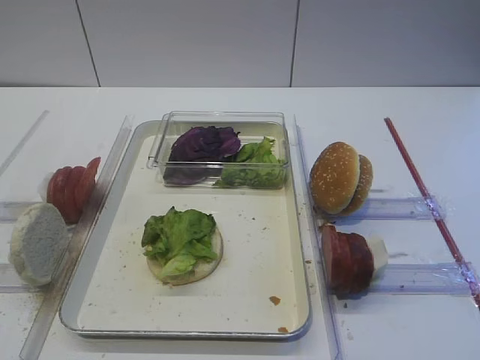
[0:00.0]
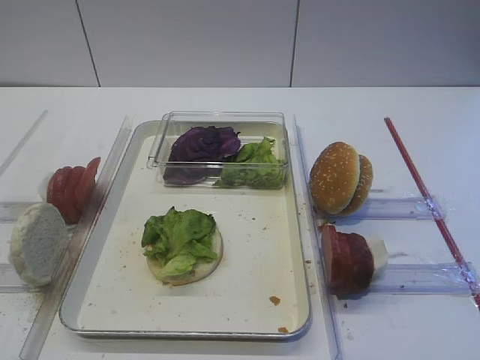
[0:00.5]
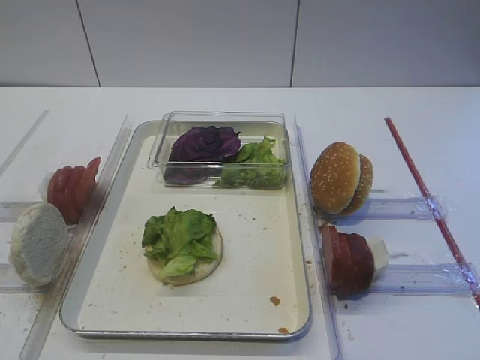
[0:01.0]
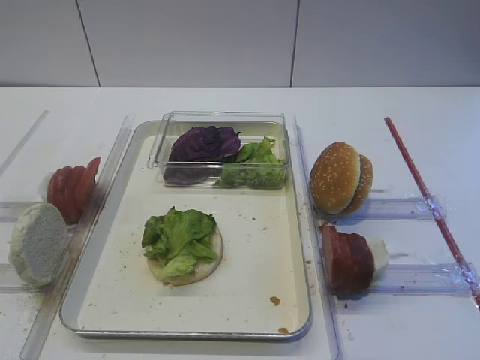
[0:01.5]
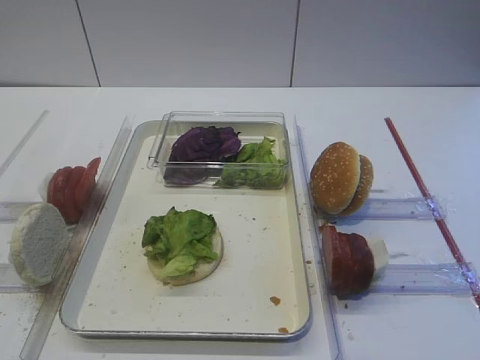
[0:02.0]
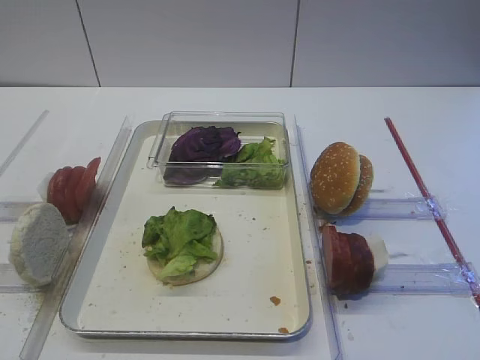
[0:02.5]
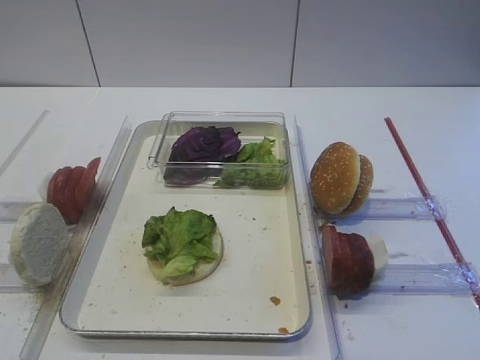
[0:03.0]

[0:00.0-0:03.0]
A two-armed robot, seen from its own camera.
0:00.0 to 0:03.0: Both grippers stay put.

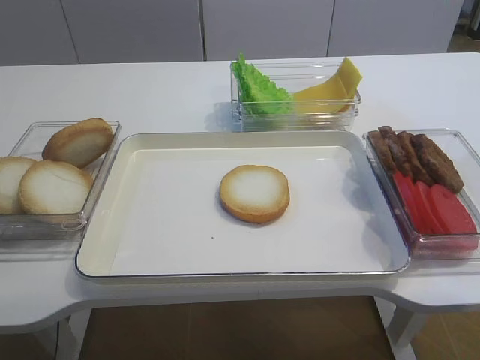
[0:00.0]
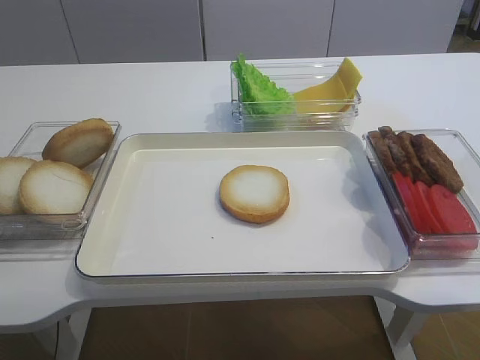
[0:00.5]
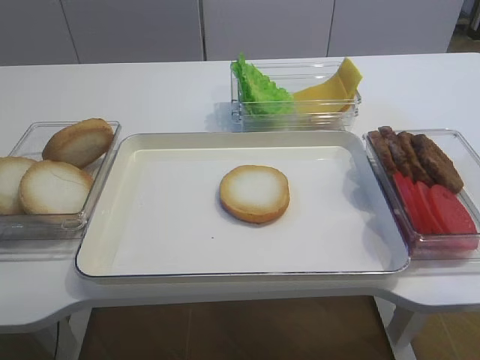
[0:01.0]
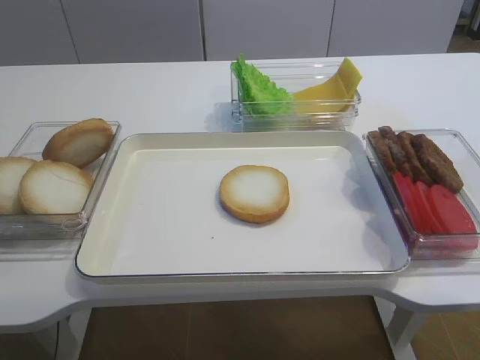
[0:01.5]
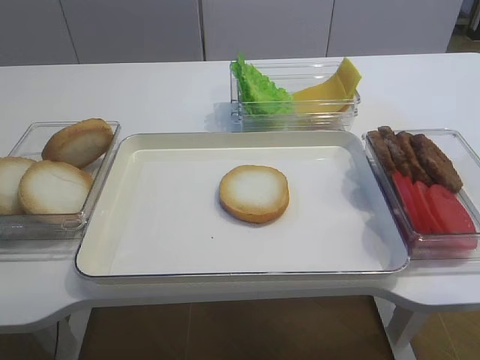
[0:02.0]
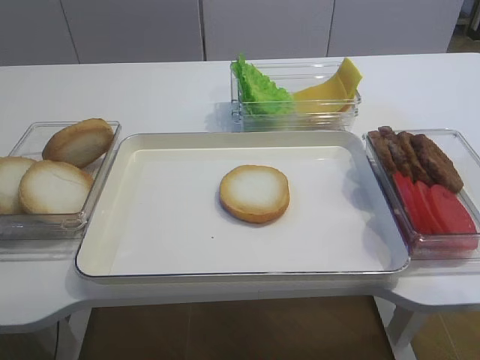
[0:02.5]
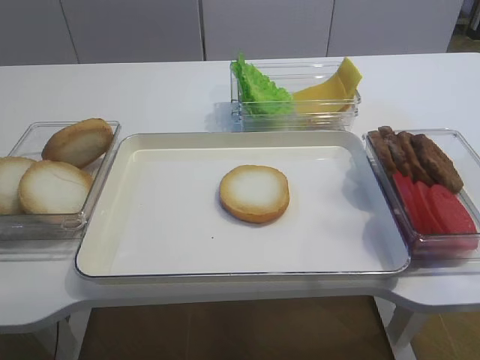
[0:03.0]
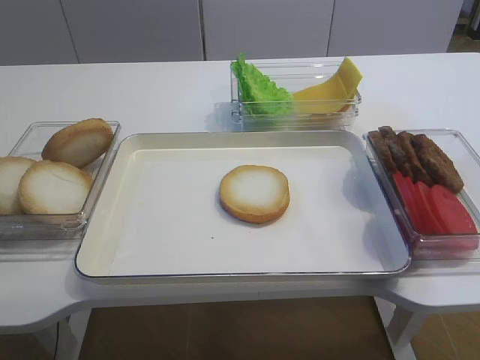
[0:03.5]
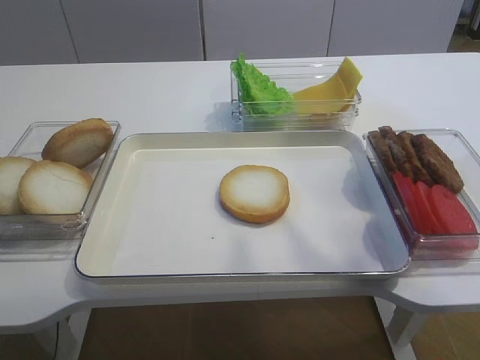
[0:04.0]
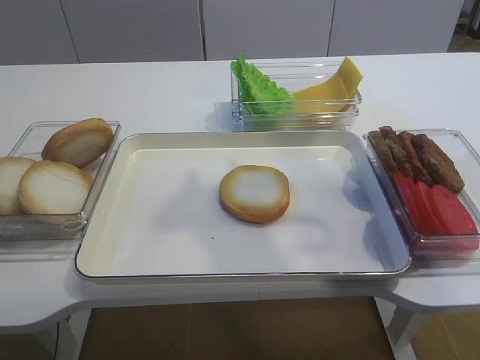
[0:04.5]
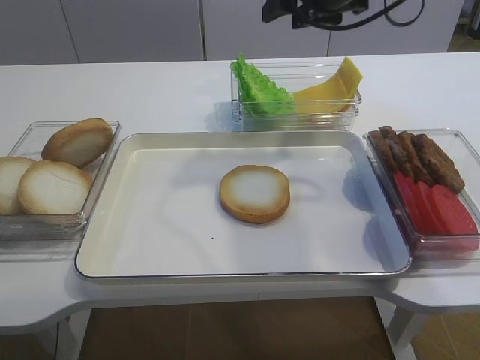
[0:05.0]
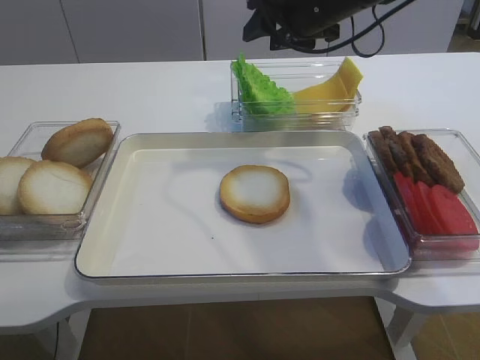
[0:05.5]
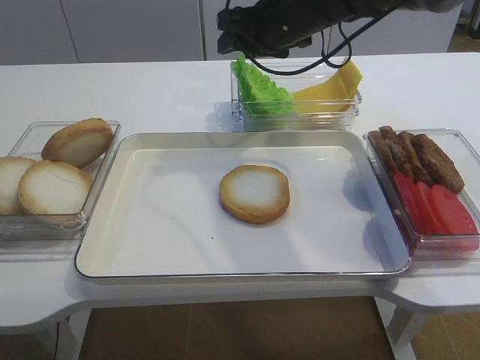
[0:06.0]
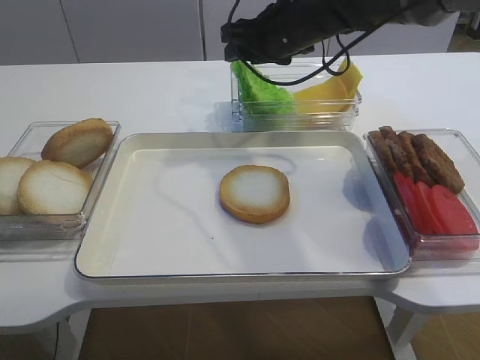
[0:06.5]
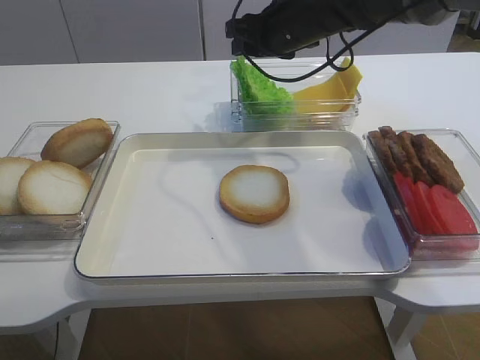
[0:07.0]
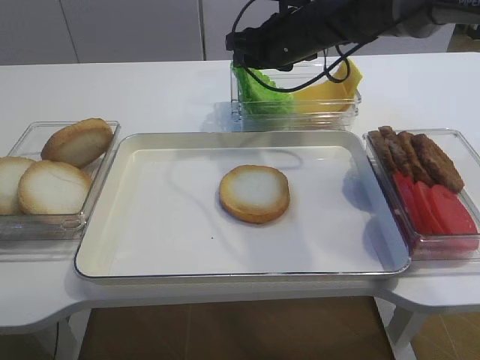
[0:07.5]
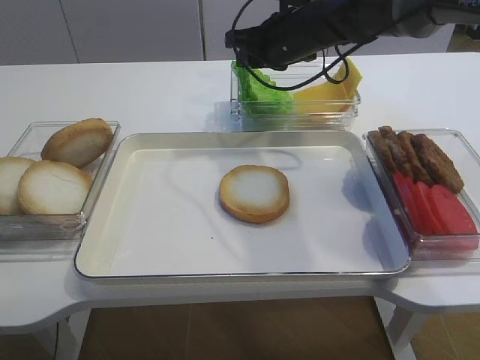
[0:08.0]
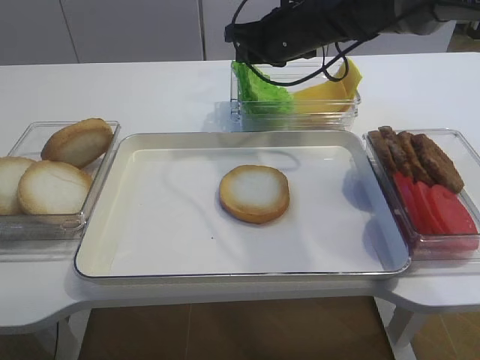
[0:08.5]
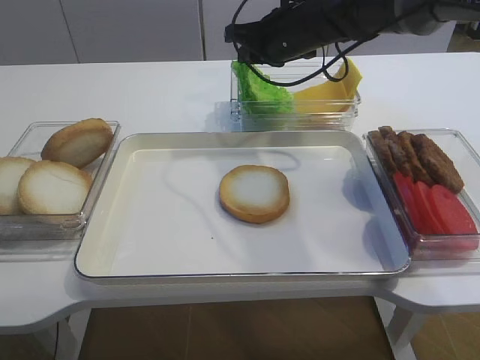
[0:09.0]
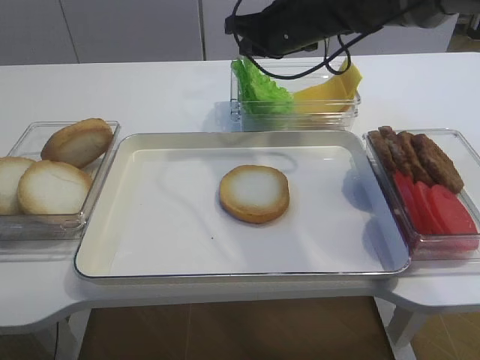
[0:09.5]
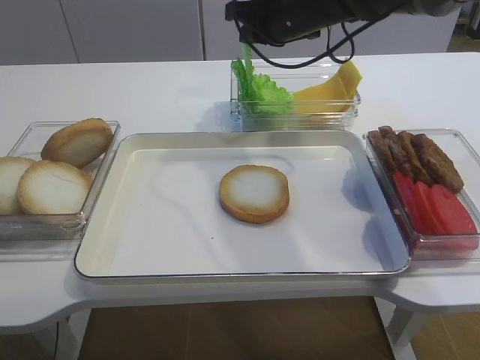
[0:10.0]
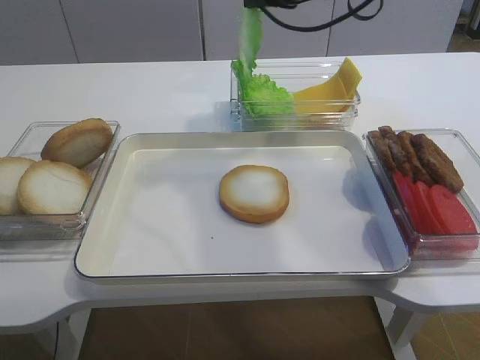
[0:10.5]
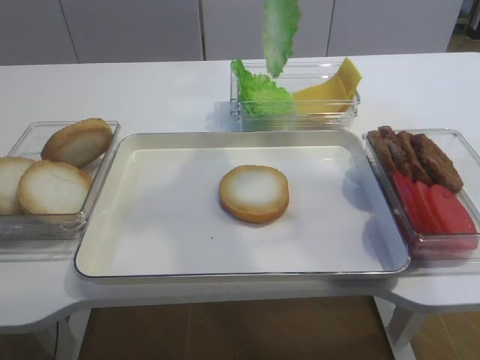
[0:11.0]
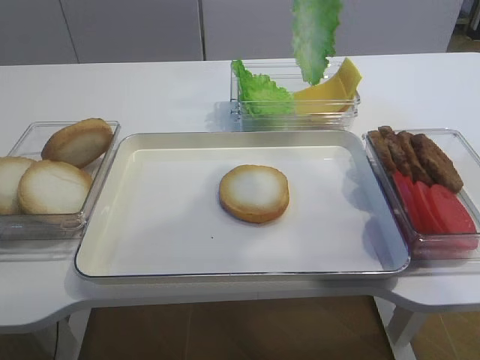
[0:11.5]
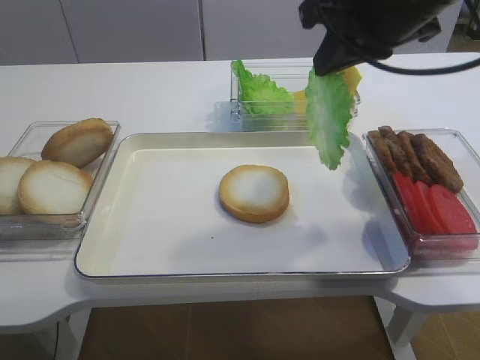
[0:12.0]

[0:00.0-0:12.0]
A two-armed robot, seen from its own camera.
Step, 0:00.0 to 0:10.5: Pick up the lettuce leaf with the right gripper.
0:02.0 to 0:04.0: The right gripper travels forward and upward by roughly 30 cm.
0:04.0 to 0:06.0: The right gripper travels forward, downward and to the left by some 25 cm.
0:06.0 to 0:08.0: The right gripper closes its fingers.
0:08.0 to 0:10.0: The right gripper closes its fingers.
0:10.0 to 0:12.0: The right gripper heads backward and to the right, covering some 15 cm.

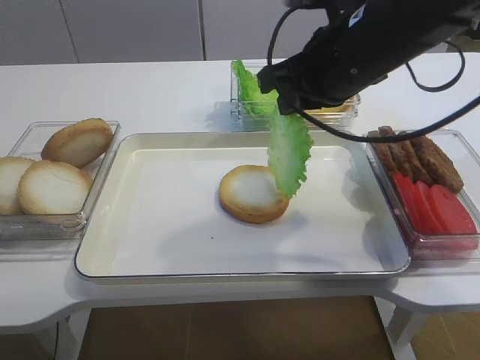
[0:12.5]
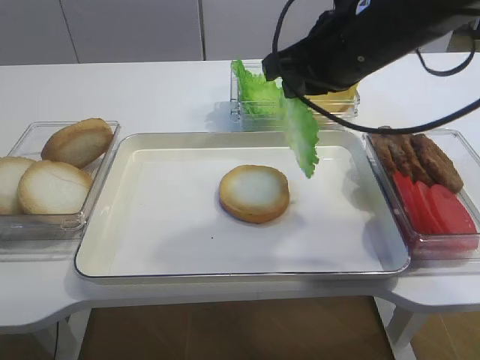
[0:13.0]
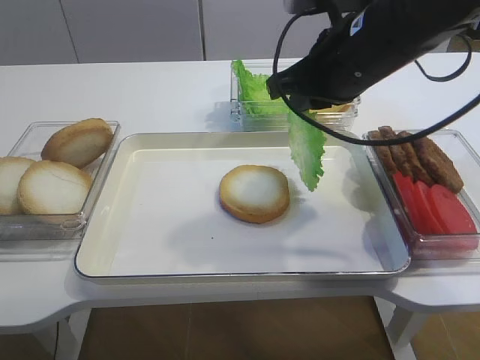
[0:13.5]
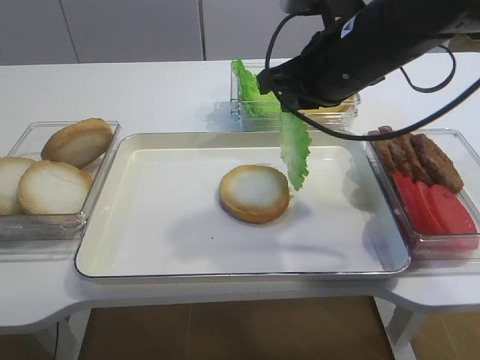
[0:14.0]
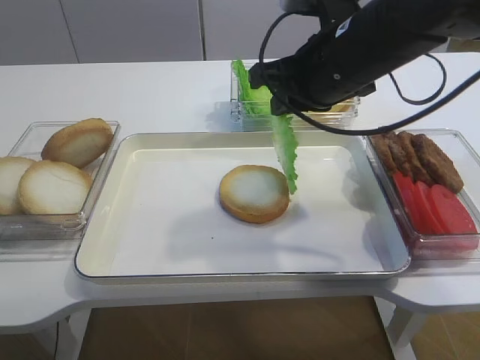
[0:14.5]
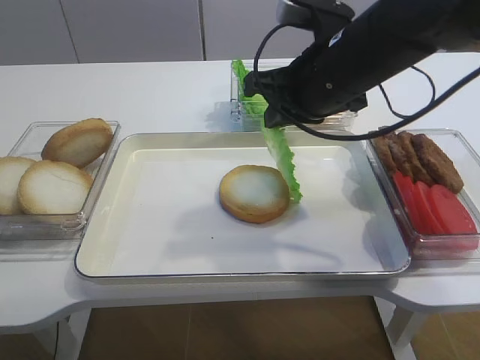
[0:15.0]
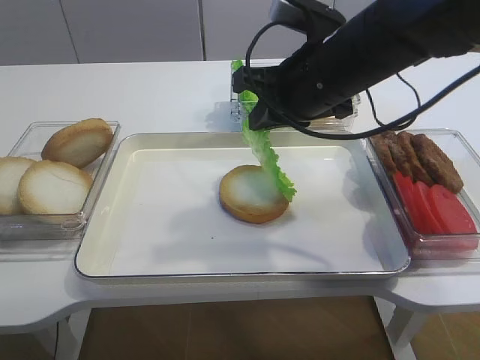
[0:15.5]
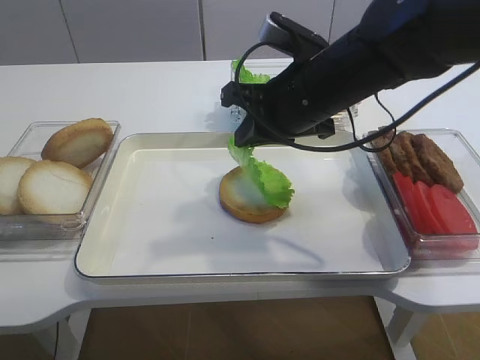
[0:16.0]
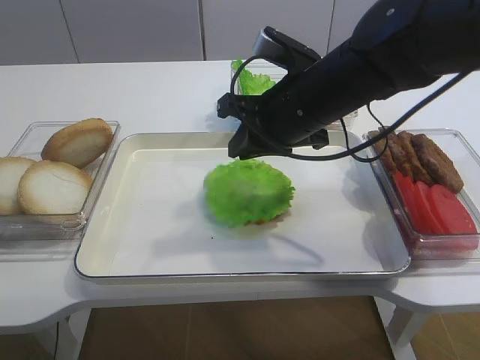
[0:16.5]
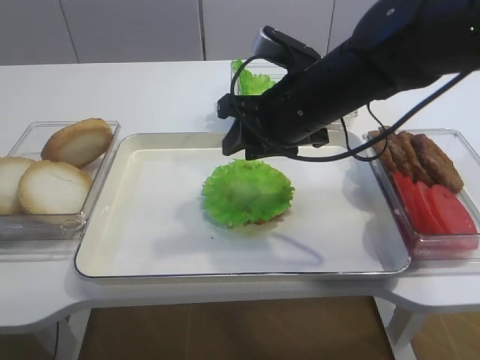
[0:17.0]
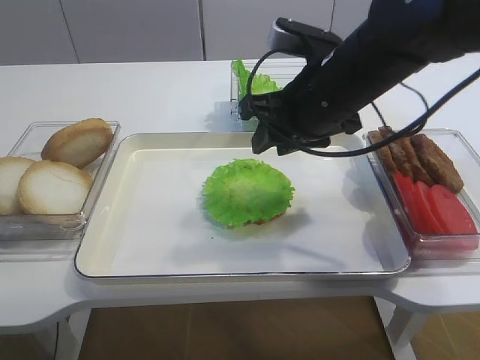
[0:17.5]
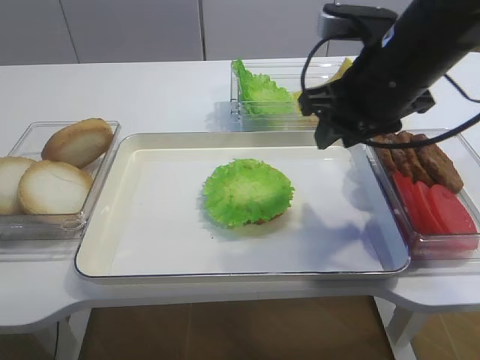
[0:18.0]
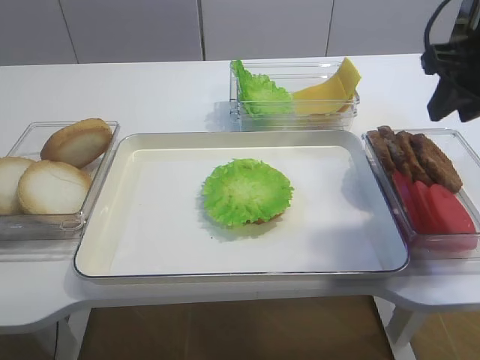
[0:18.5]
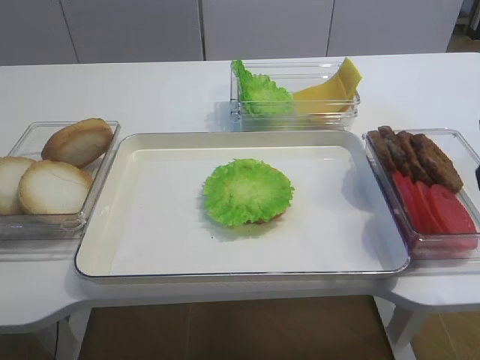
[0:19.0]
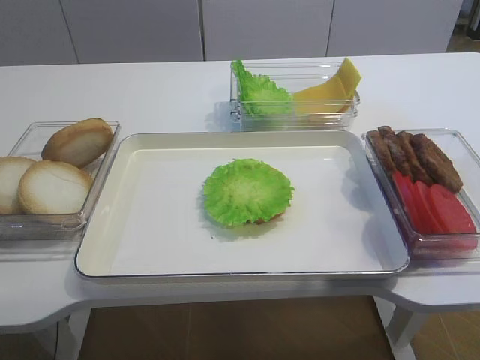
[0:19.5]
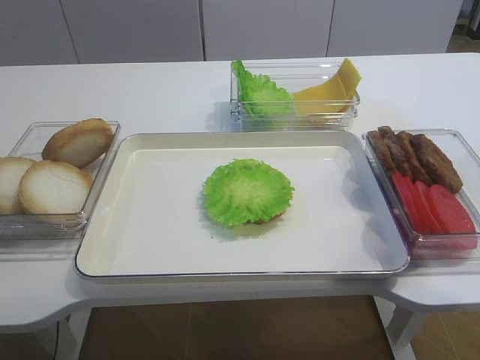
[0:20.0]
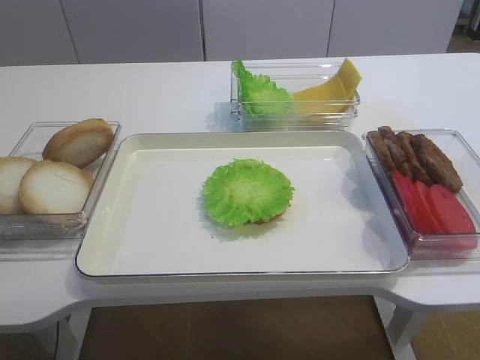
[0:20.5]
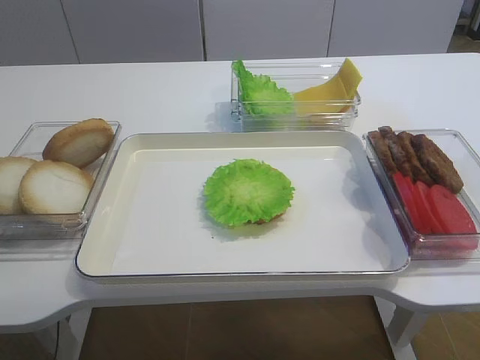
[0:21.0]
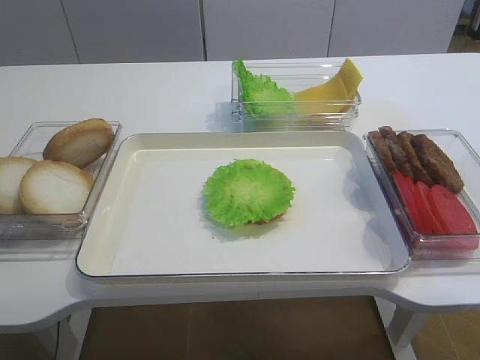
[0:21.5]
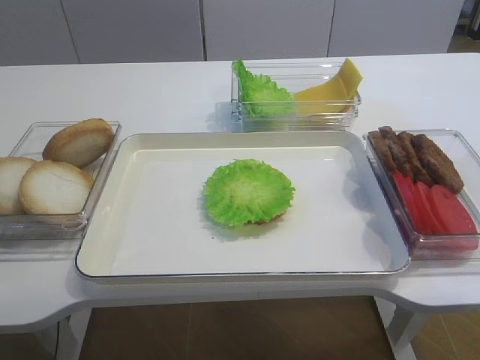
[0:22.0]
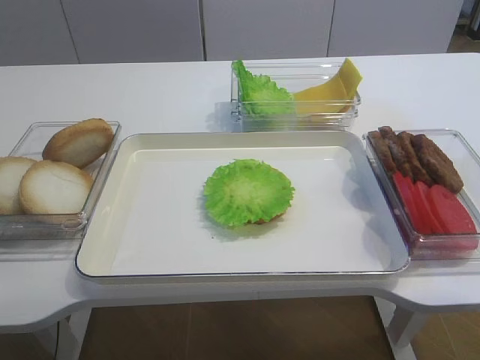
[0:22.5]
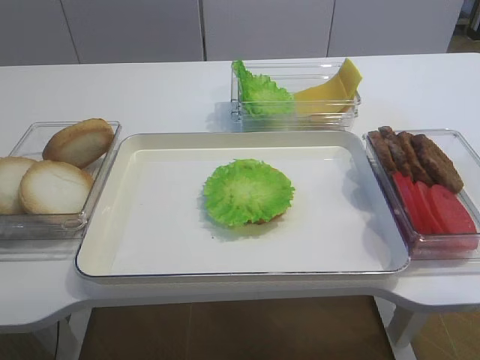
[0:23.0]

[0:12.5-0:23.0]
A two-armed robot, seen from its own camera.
Step, 0:12.5 to 0:17.0: Place the lettuce leaf on the bread slice with the right gripper.
0:14.5 to 0:16.5: The right gripper changes place by some 5 cm.
0:16.5 to 0:19.0: The right gripper travels to the right and backward by about 20 cm, and opens its fingers.
0:19.0 to 0:21.0: The right gripper shifts roughly 20 cm backward.
